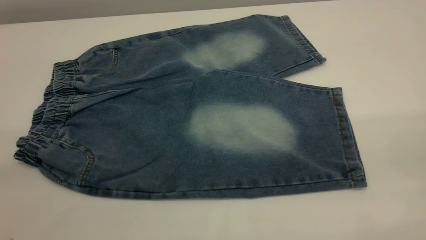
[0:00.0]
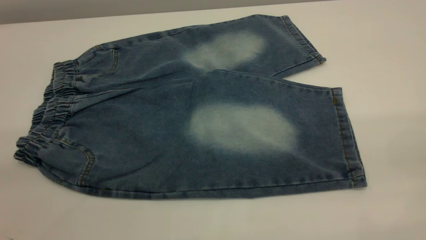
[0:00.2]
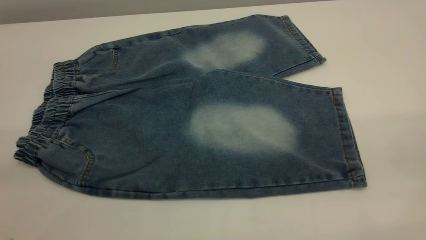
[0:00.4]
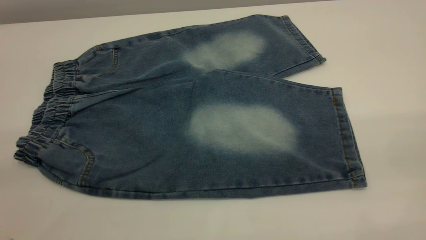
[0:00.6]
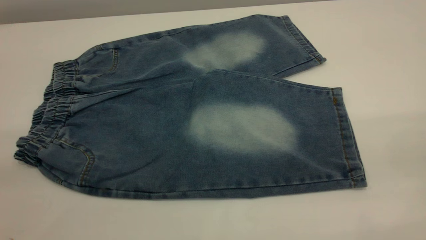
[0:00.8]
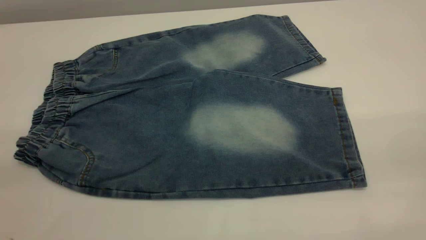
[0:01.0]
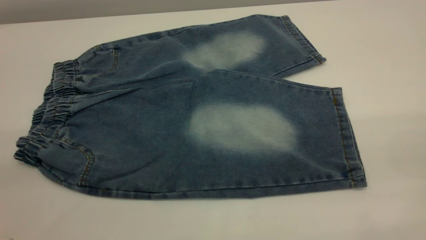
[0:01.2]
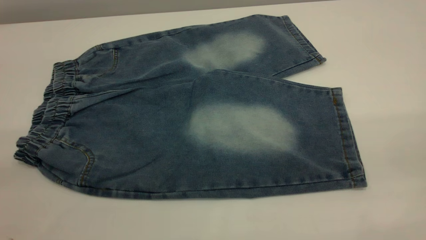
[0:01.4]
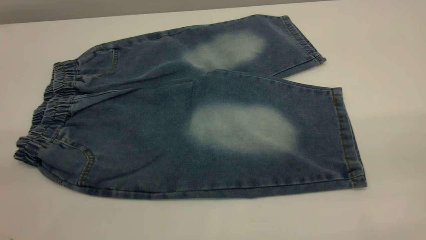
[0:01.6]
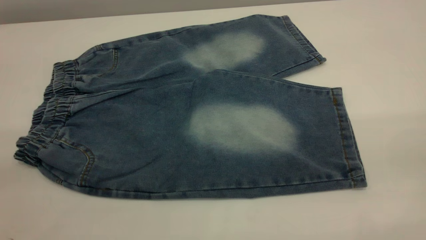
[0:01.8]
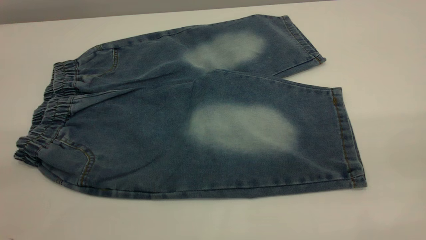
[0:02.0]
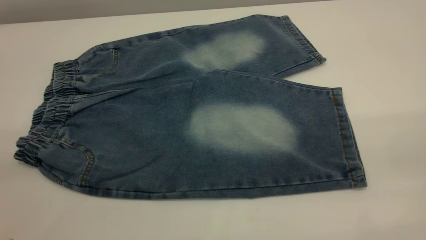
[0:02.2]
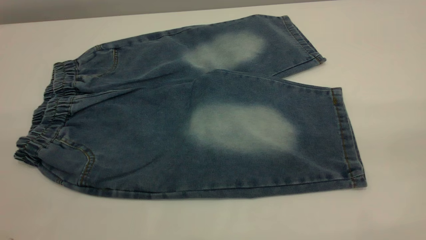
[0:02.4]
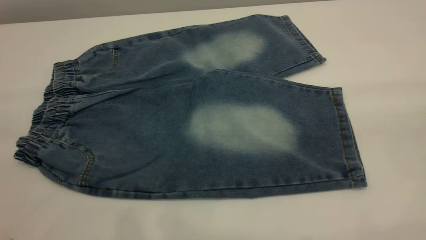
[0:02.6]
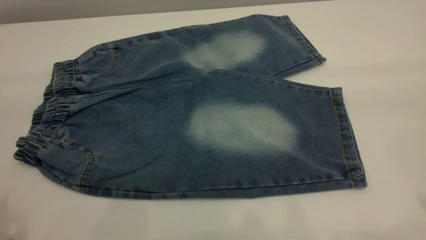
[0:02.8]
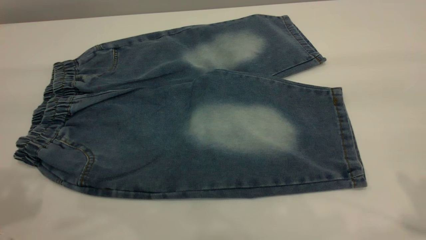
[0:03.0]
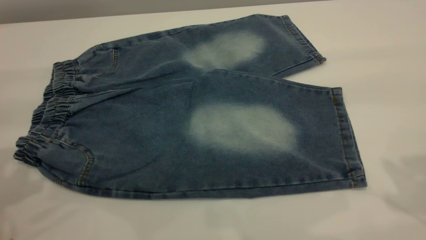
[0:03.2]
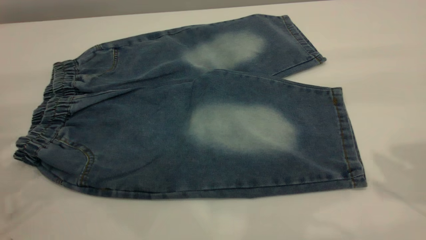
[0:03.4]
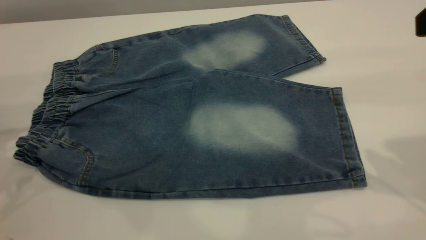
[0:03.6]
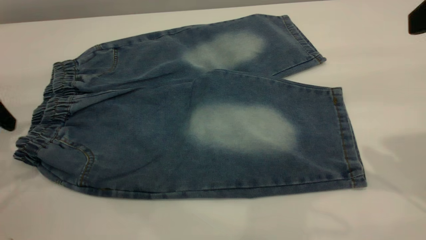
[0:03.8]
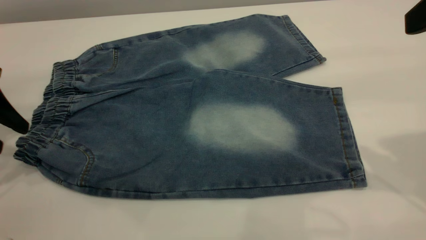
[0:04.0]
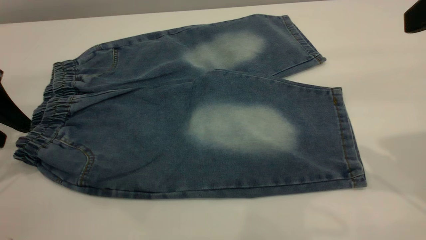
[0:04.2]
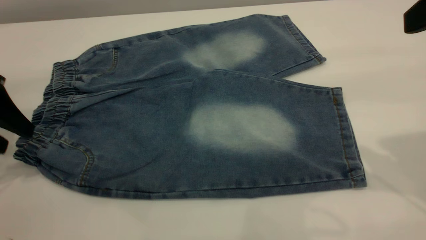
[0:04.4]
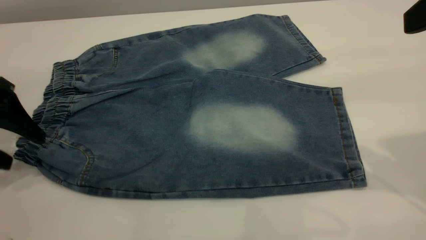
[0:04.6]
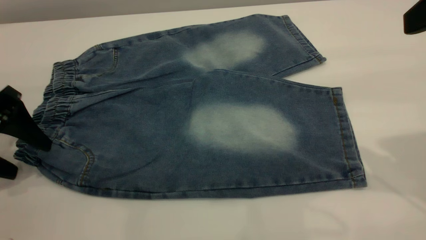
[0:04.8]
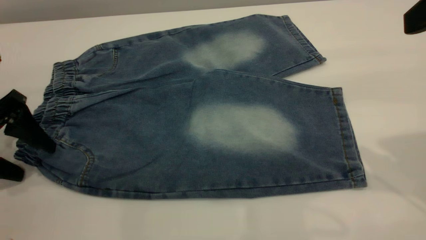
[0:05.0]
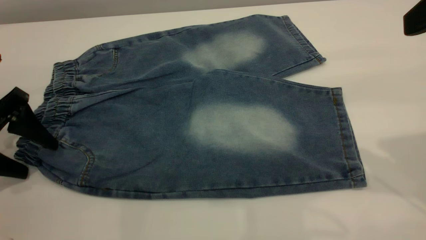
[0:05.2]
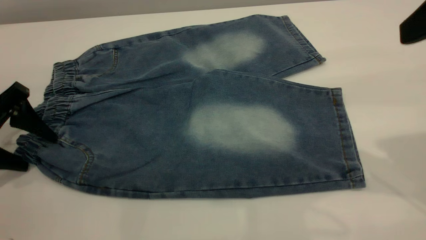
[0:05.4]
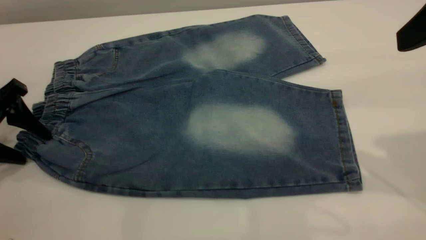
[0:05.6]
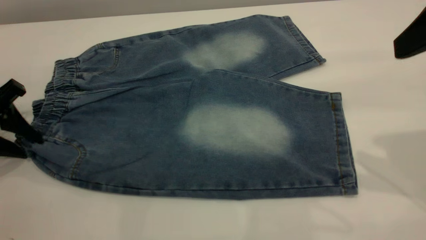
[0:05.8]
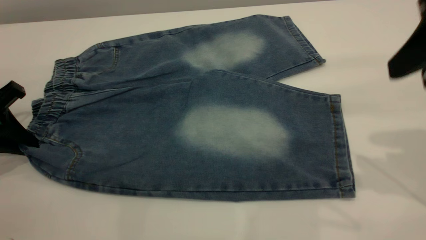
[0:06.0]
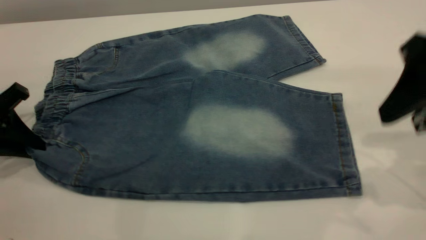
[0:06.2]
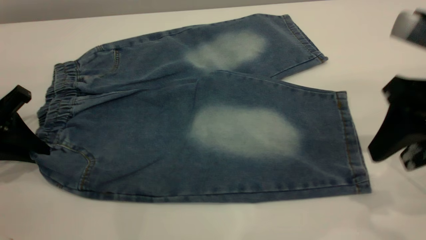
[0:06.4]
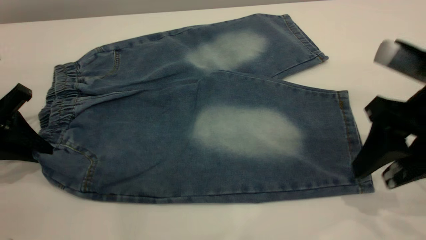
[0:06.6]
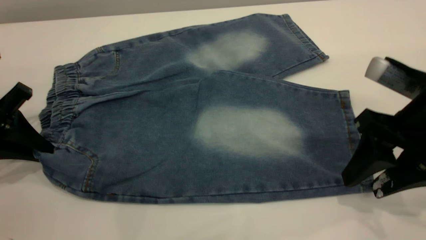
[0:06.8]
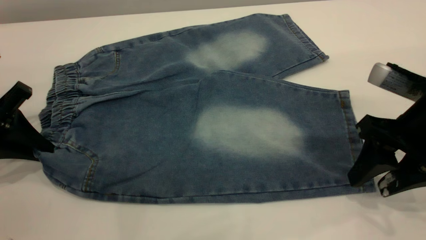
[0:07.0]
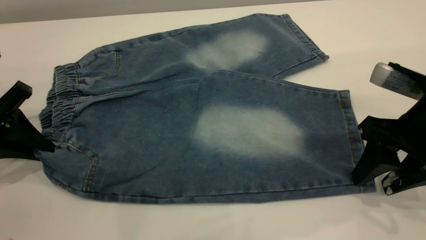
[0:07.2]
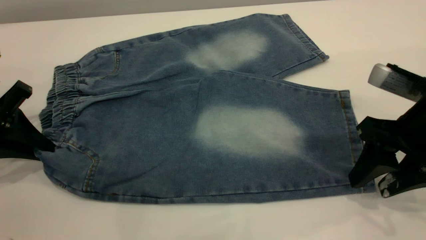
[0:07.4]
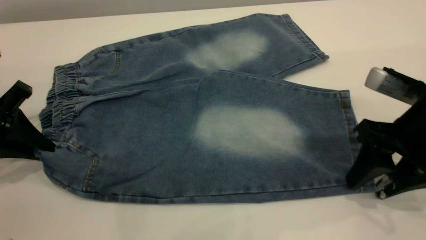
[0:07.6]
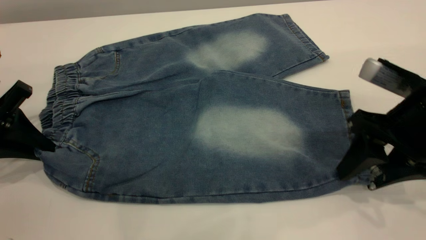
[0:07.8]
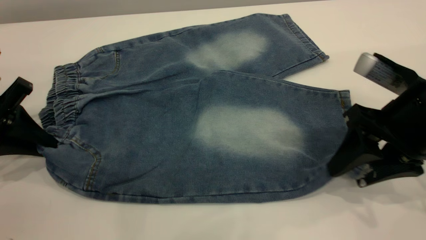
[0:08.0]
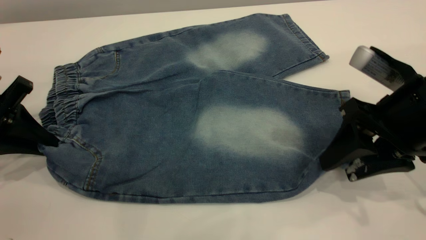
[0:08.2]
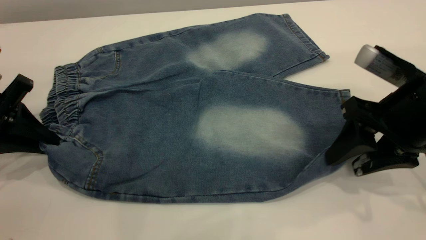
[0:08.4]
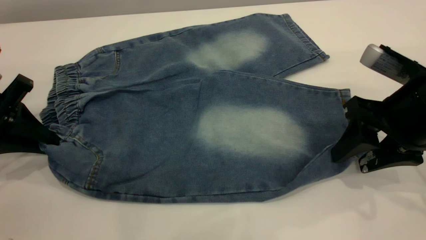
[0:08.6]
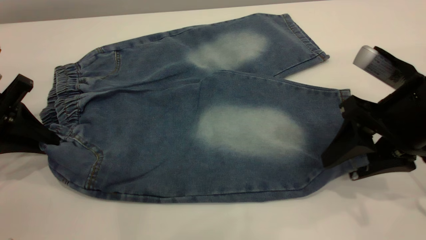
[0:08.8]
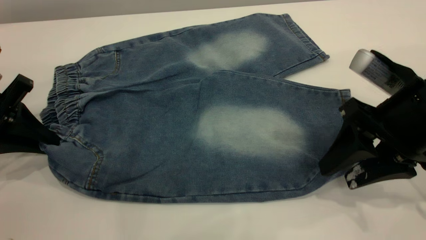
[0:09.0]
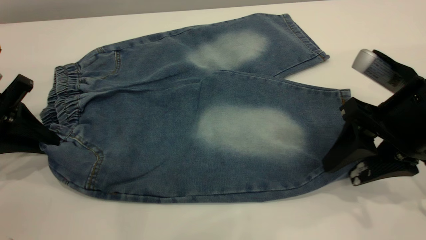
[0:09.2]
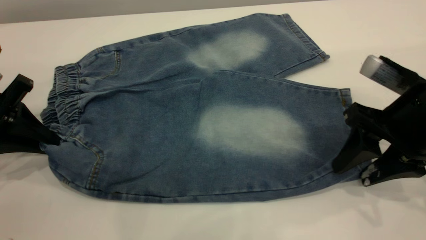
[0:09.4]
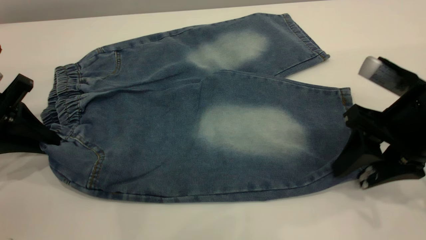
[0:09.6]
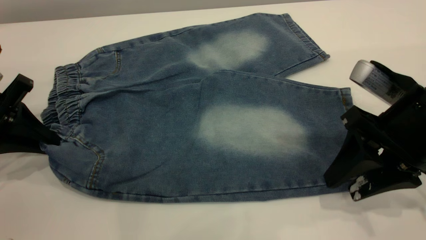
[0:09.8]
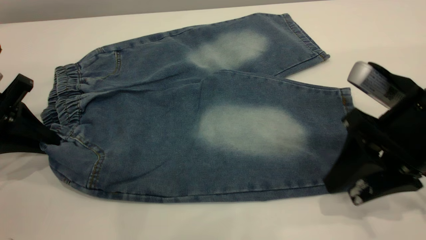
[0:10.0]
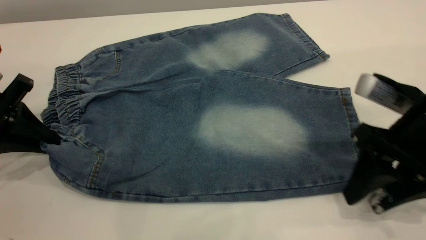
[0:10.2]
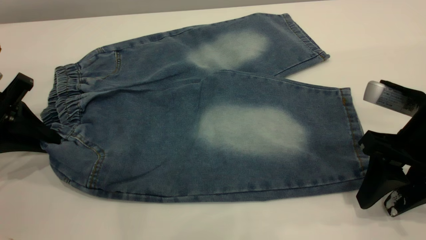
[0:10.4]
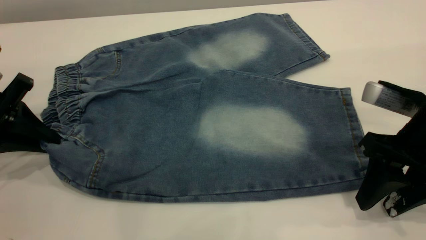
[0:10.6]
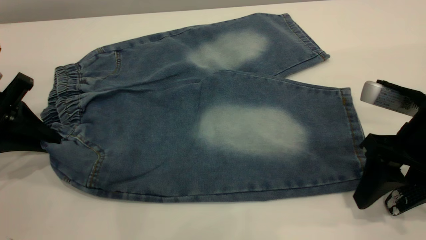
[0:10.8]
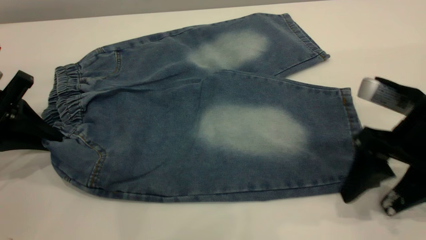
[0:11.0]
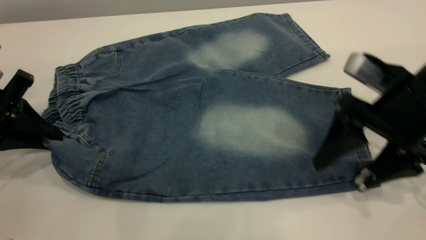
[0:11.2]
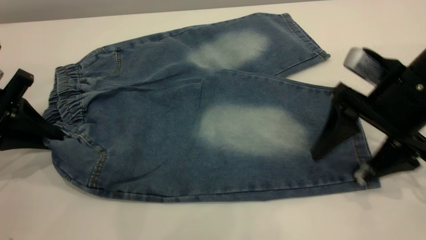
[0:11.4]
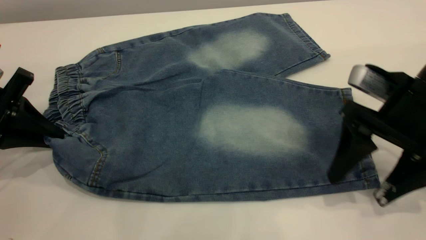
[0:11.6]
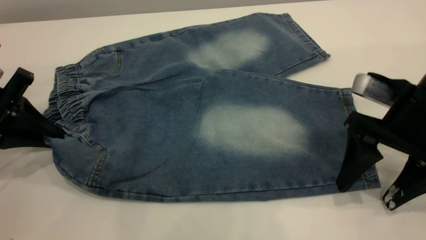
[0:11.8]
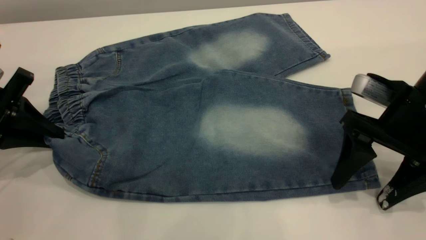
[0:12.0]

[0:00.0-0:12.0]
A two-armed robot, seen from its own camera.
0:00.0 to 0:01.6: Both grippers stay put.
0:03.0 to 0:04.4: The left gripper travels downward and forward by approximately 20 cm; the right gripper is displaced forward and downward by about 10 cm.
0:04.4 to 0:06.0: The left gripper goes roughly 5 cm downward, and closes.
0:06.0 to 0:07.6: The right gripper travels downward by about 15 cm.
0:07.6 to 0:10.4: The grippers move only a little.
0:10.4 to 0:12.0: The right gripper opens its fingers.

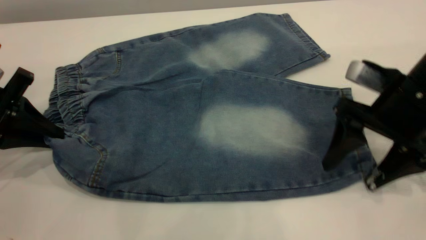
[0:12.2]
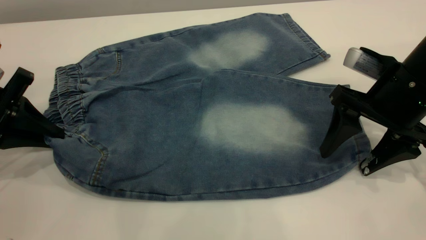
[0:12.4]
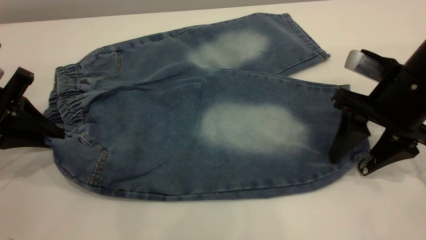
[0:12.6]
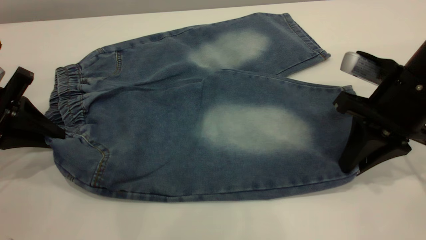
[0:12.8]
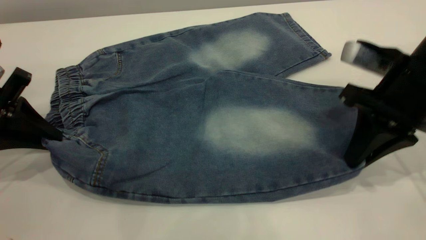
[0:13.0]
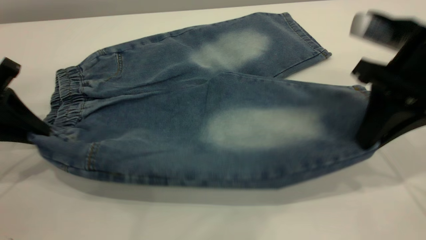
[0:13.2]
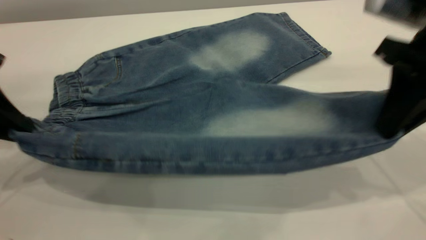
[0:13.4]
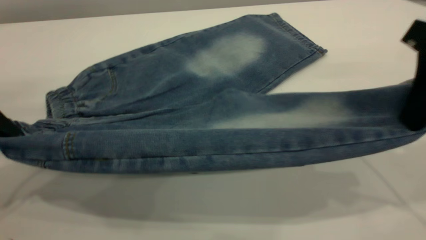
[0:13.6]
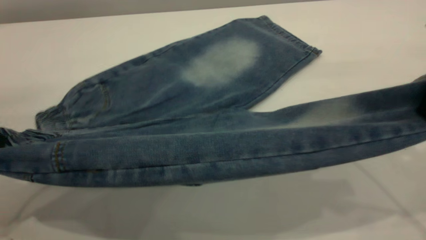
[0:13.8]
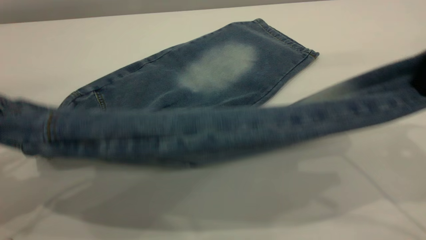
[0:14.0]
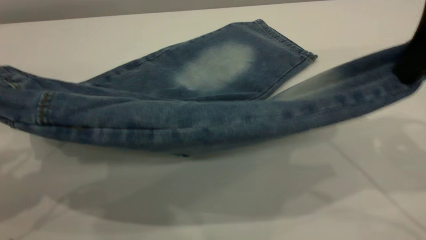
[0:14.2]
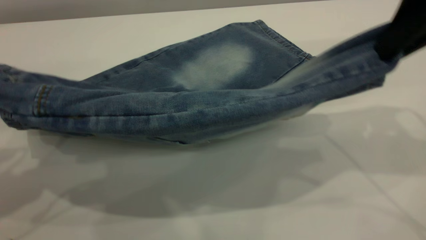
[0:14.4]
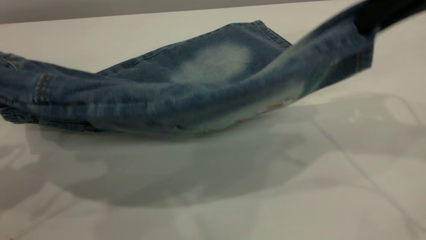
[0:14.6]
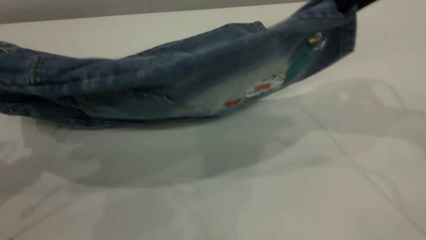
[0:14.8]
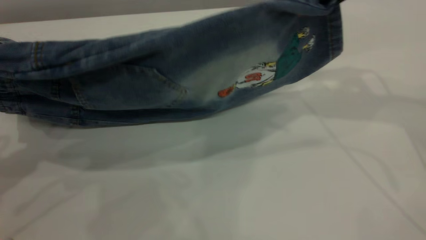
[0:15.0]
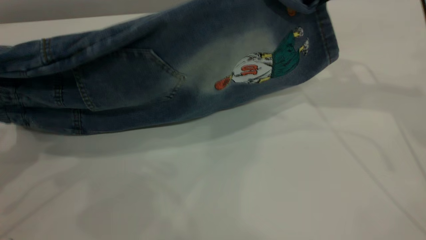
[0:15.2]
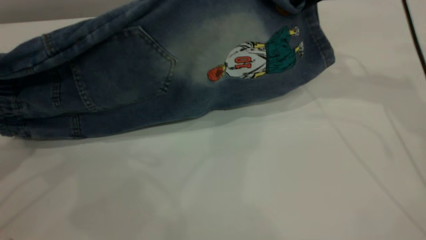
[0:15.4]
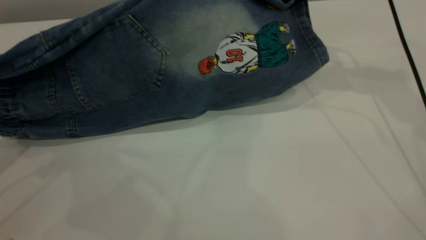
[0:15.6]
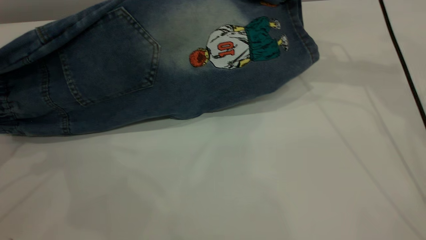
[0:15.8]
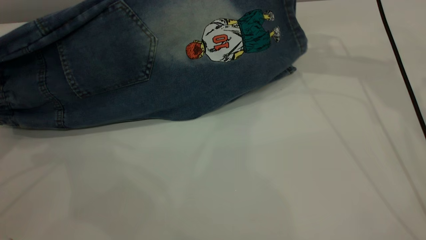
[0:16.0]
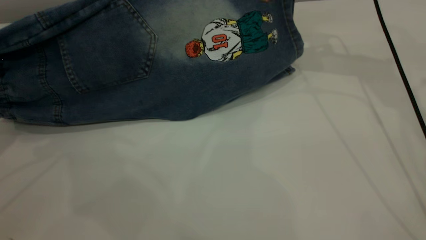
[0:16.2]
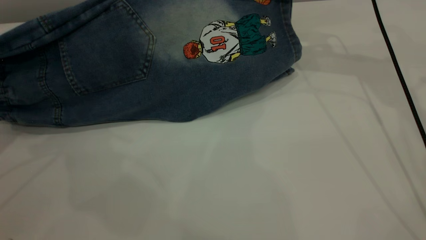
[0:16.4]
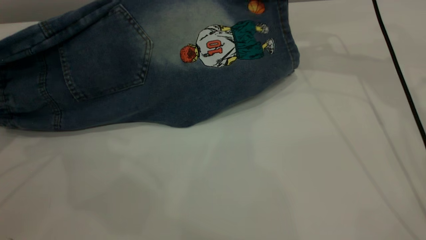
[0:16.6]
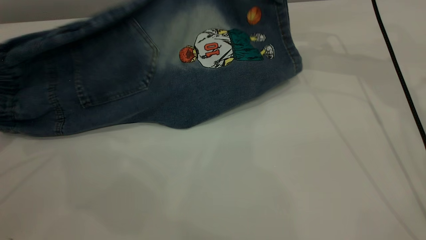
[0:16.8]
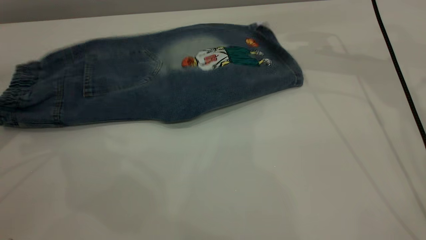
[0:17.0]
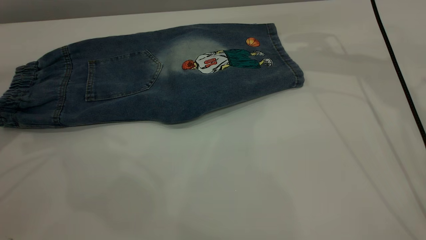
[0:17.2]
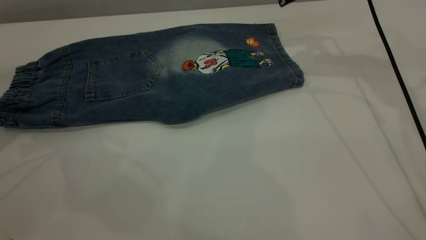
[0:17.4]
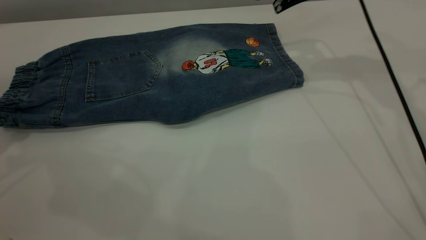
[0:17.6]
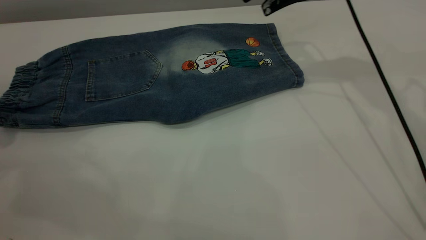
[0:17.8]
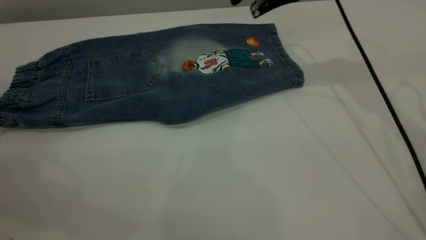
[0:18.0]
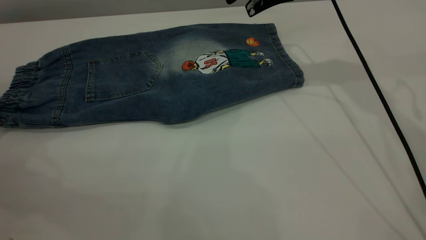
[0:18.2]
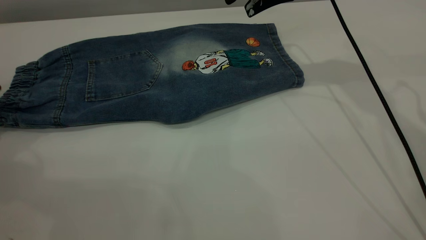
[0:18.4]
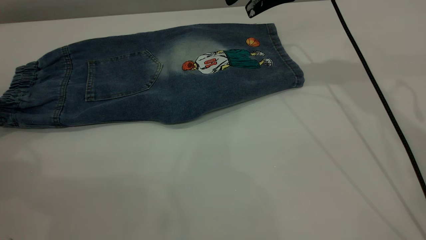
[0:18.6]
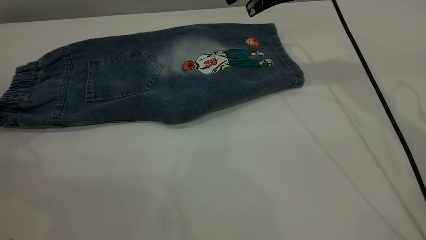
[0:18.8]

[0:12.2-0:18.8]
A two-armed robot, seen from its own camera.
Step, 0:12.2 to 0:17.2: Fold the bottom of the pants upward.
0:12.2 to 0:13.8: The right gripper is displaced upward by approximately 15 cm, and closes its fingers; the left gripper moves upward and backward, roughly 10 cm.
0:13.8 to 0:15.4: The left gripper changes place by approximately 5 cm. The right gripper goes roughly 20 cm forward.
0:15.4 to 0:17.2: The left gripper opens; the right gripper moves forward, some 5 cm, and opens its fingers.
0:17.2 to 0:18.8: The right gripper is displaced to the left by roughly 5 cm.
